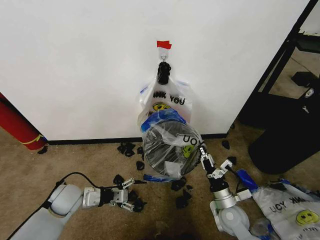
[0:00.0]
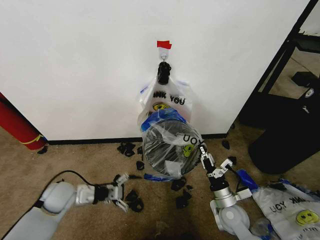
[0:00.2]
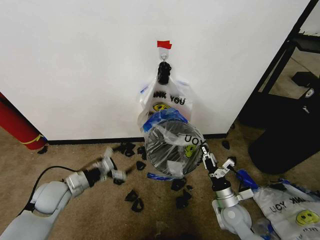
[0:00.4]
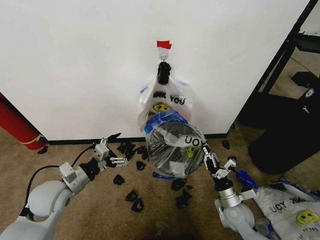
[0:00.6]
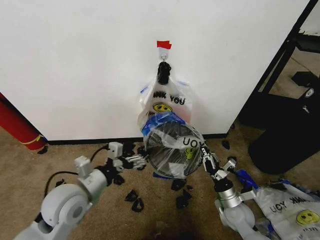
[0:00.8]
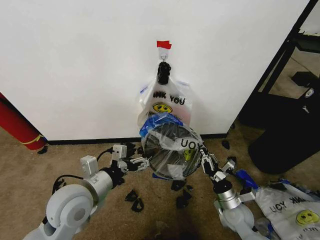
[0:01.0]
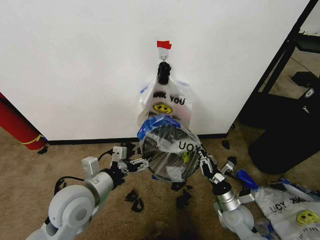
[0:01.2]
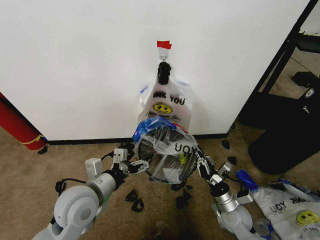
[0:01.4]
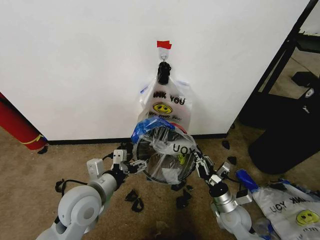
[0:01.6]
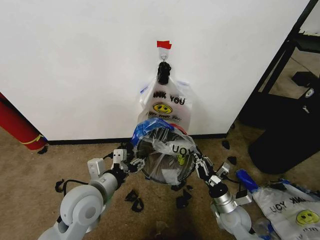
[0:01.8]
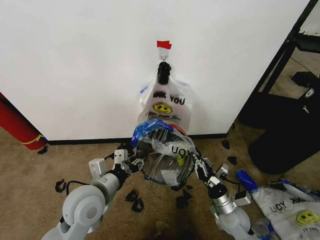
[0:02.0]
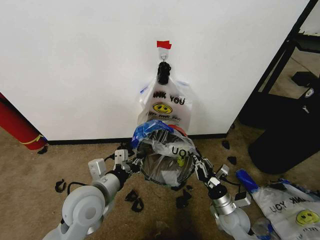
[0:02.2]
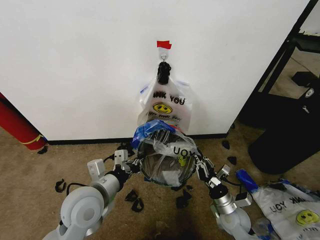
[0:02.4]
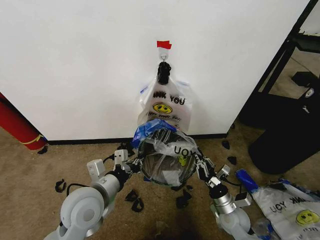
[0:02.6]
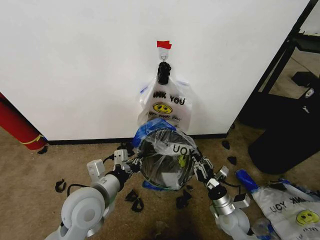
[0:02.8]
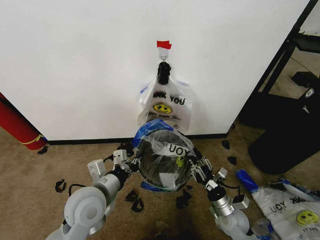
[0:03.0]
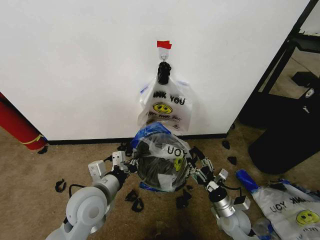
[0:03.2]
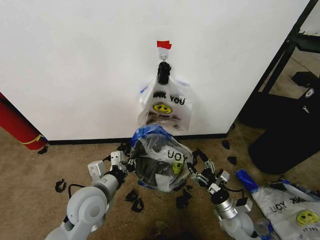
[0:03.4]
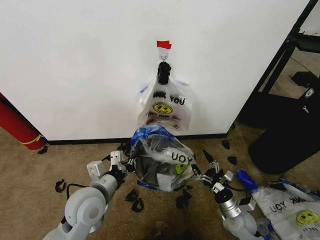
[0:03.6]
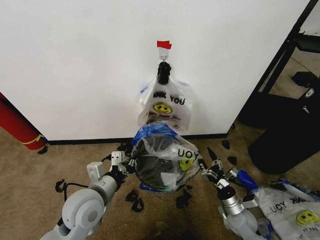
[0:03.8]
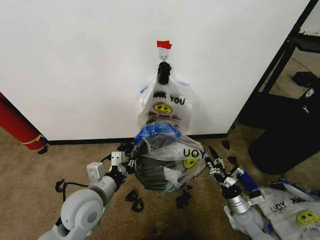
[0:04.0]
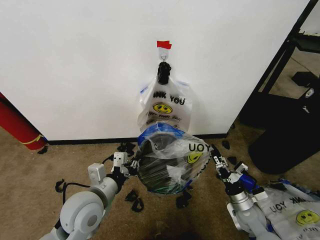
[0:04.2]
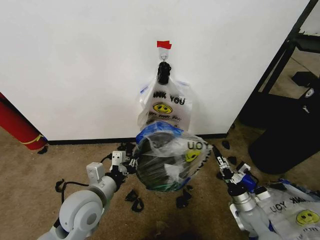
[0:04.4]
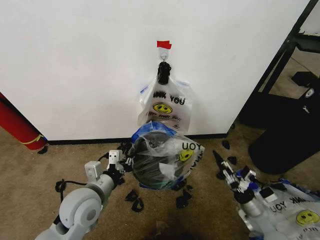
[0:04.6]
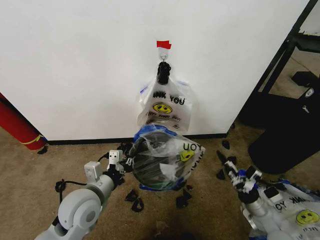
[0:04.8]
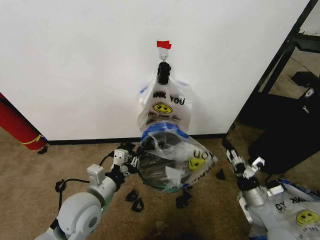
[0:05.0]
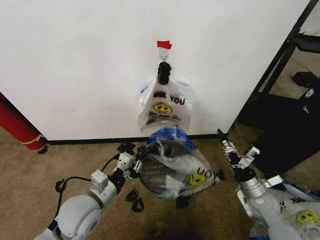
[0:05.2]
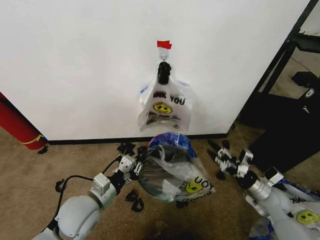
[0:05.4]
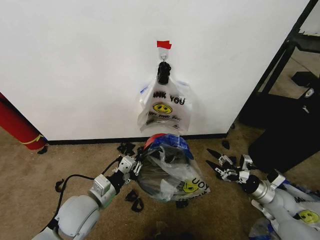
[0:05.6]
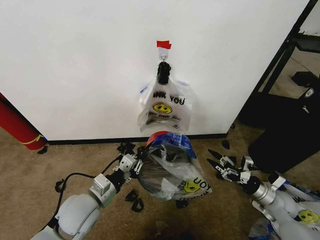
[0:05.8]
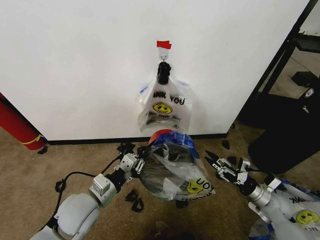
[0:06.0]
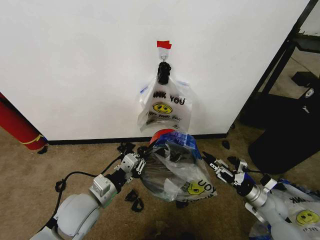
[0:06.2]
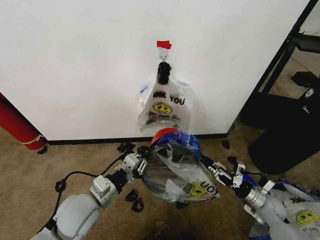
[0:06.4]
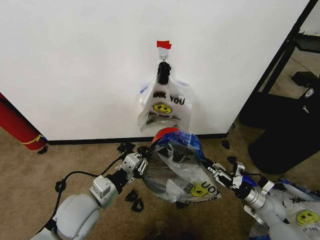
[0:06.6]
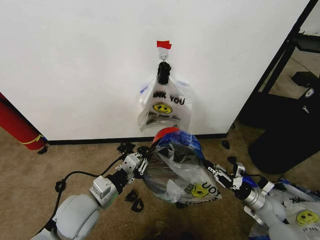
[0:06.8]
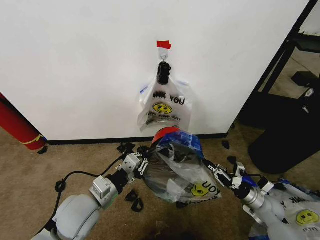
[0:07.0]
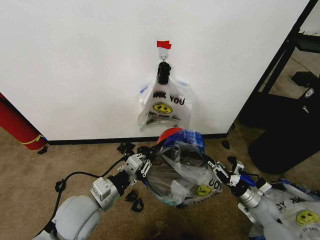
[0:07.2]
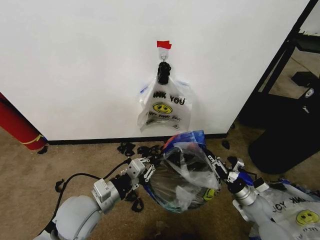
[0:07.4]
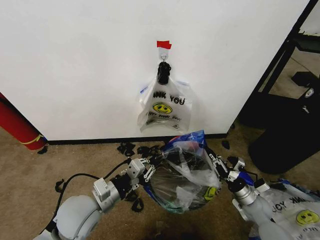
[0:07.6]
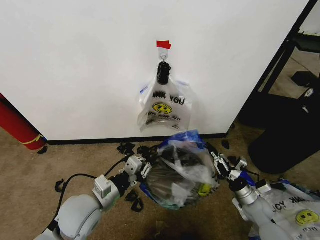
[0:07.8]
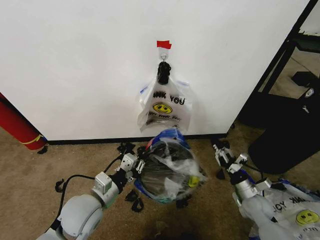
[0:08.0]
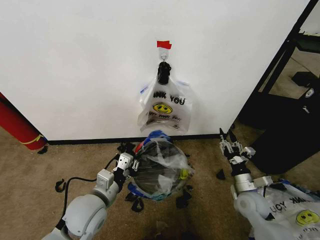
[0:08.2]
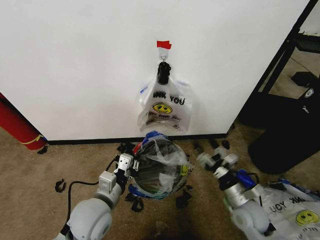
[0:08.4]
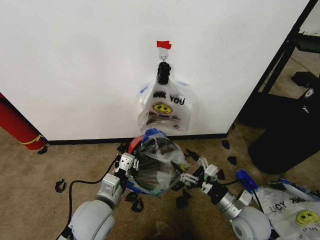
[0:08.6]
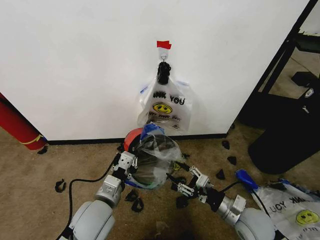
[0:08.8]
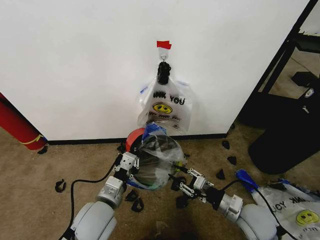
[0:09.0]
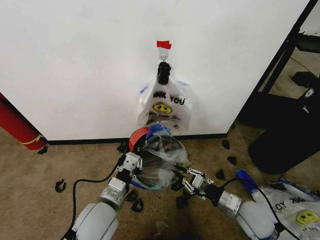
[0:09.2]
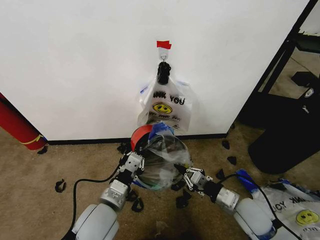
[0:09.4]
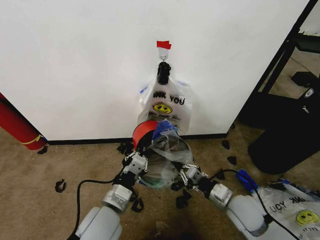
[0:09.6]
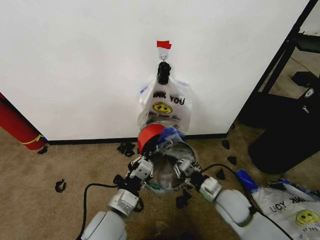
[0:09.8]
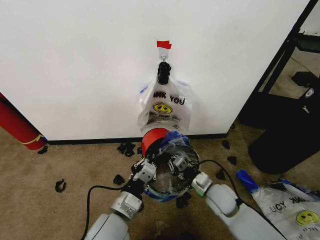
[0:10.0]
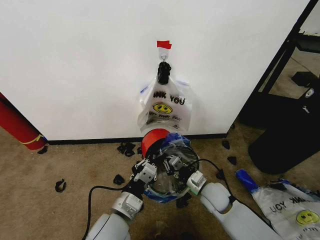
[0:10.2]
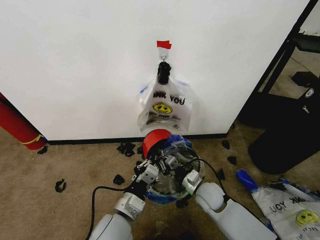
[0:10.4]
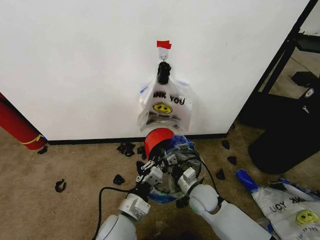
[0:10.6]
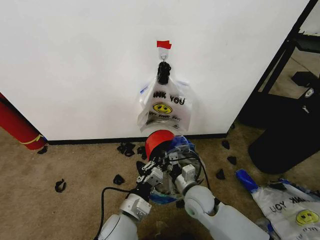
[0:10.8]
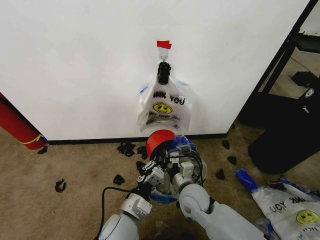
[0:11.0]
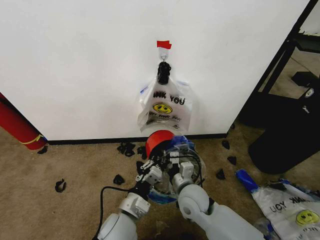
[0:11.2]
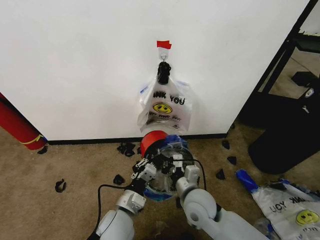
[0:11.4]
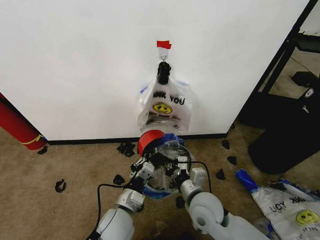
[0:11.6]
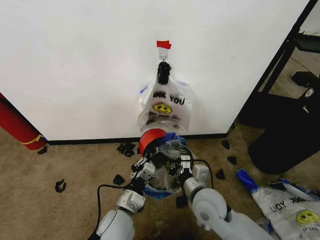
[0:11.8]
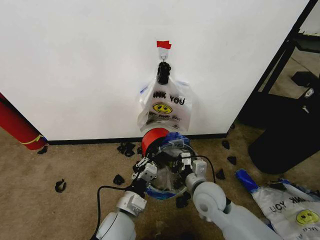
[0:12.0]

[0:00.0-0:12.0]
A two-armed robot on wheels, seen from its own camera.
Task of the whole recording: Pick up the garbage bag from the wall and place it over the trash bin.
0:00.0 to 0:01.6: The left gripper shifts roughly 20 cm upward, to the right and backward.
0:01.6 to 0:03.0: The left gripper closes its fingers. The right gripper opens its fingers.
0:03.0 to 0:04.4: The right gripper shifts about 5 cm to the right, and opens.
0:04.4 to 0:06.0: The right gripper moves to the right, about 10 cm.
0:06.0 to 0:07.6: The right gripper moves roughly 5 cm, and closes.
0:07.6 to 0:09.0: The right gripper is displaced upward, to the left and backward by some 15 cm, and opens.
0:09.0 to 0:10.4: The right gripper shifts roughly 15 cm to the left, forward and downward, and closes its fingers, while the left gripper ends up approximately 5 cm from where it was.
0:10.4 to 0:12.0: The right gripper heads upward, covering roughly 10 cm.

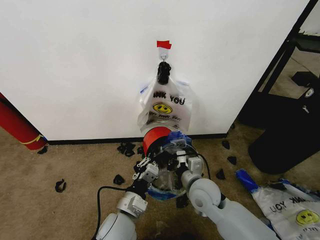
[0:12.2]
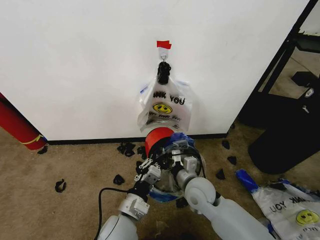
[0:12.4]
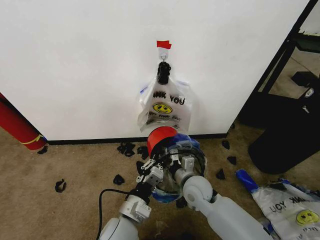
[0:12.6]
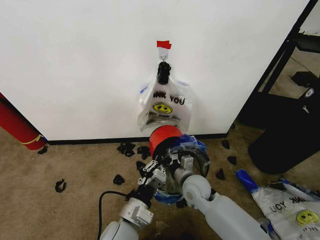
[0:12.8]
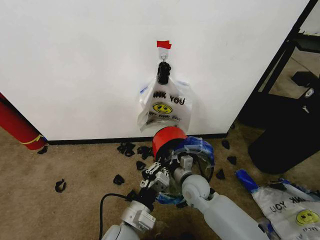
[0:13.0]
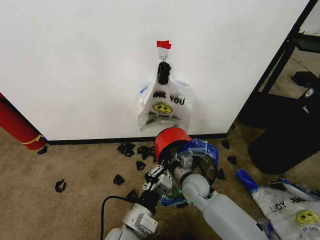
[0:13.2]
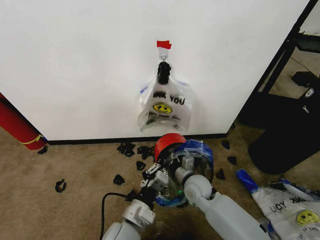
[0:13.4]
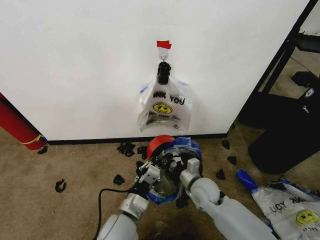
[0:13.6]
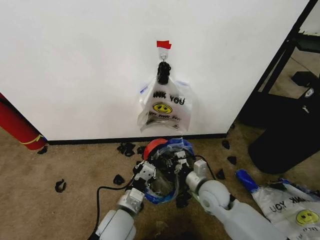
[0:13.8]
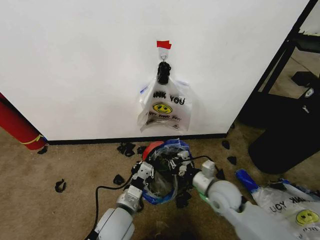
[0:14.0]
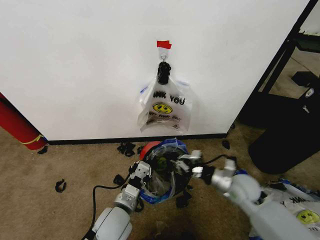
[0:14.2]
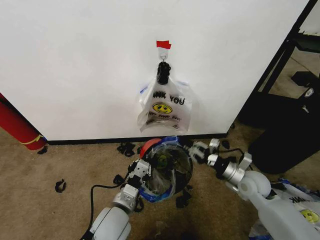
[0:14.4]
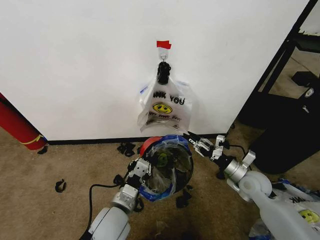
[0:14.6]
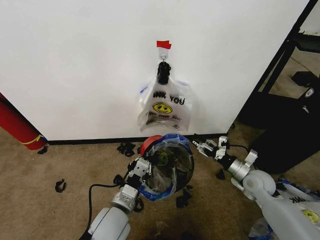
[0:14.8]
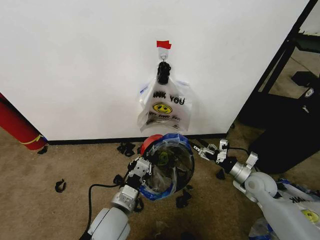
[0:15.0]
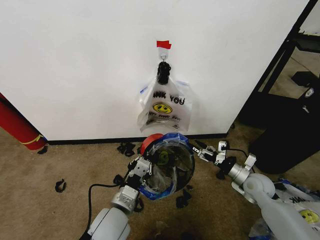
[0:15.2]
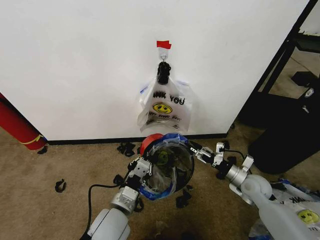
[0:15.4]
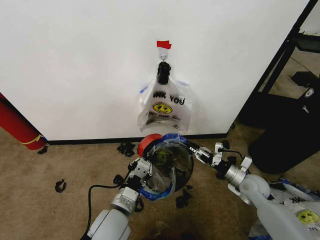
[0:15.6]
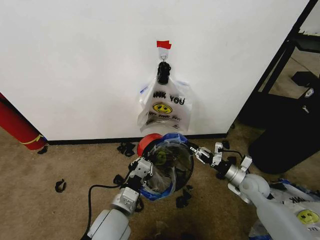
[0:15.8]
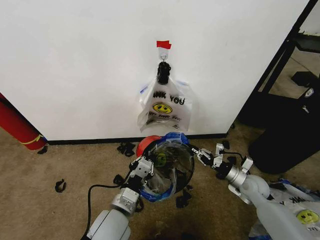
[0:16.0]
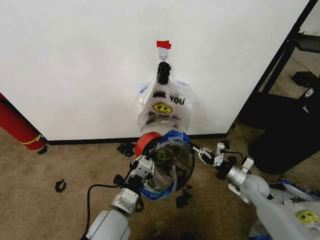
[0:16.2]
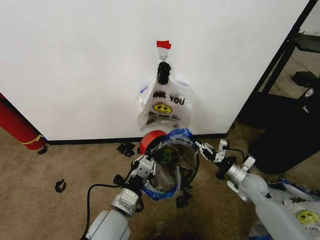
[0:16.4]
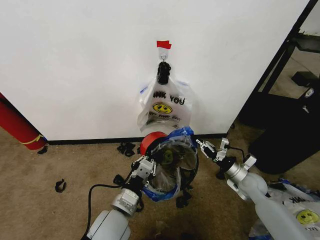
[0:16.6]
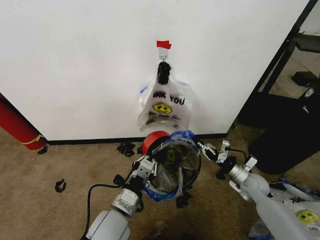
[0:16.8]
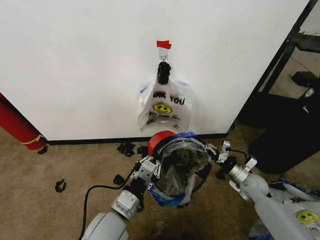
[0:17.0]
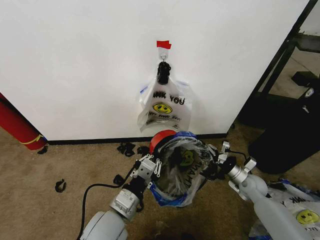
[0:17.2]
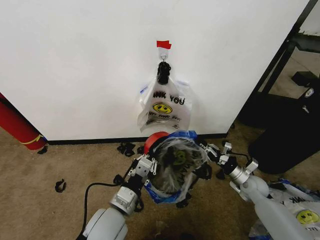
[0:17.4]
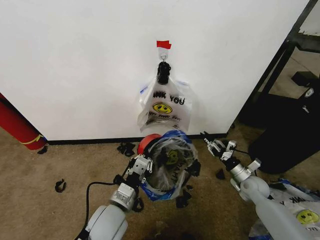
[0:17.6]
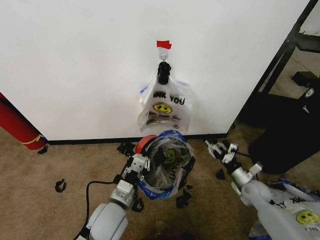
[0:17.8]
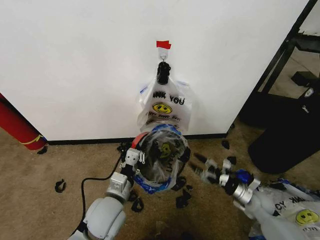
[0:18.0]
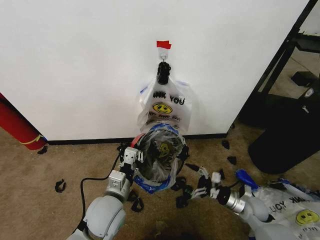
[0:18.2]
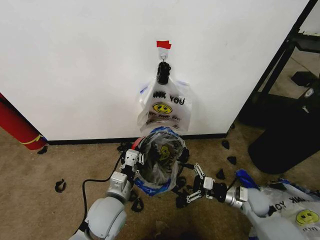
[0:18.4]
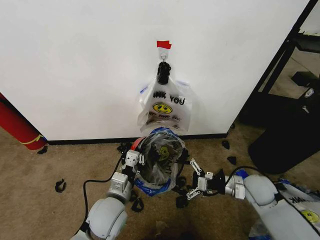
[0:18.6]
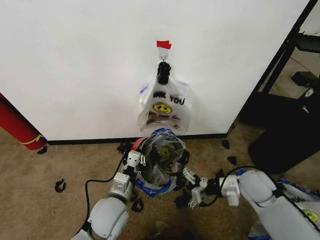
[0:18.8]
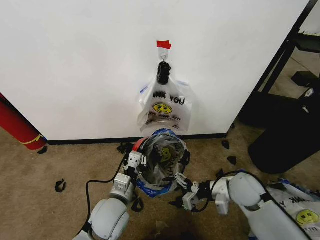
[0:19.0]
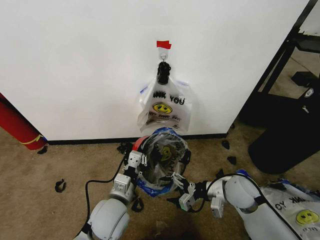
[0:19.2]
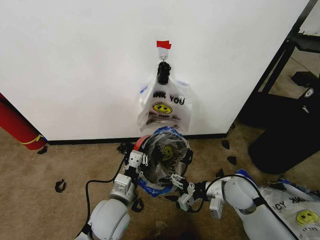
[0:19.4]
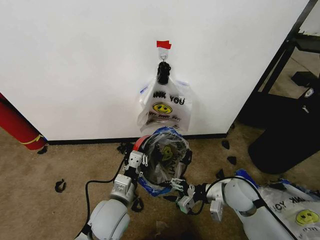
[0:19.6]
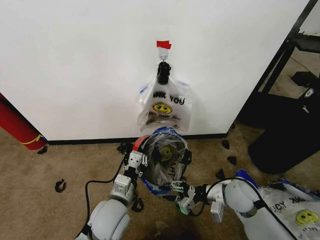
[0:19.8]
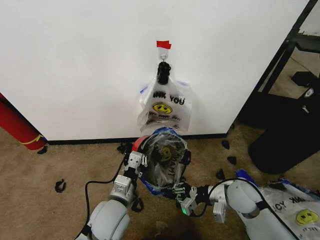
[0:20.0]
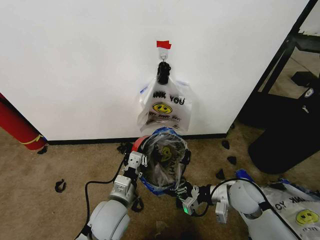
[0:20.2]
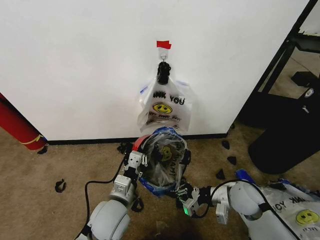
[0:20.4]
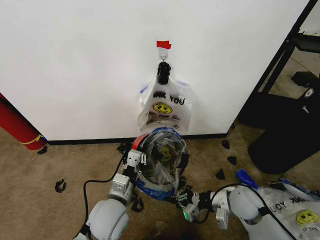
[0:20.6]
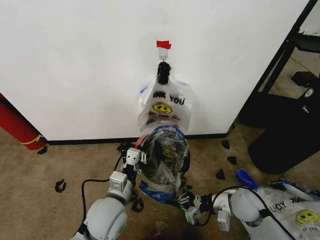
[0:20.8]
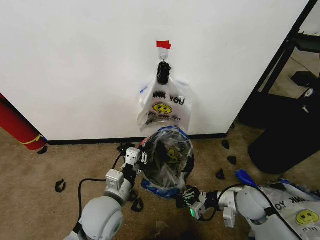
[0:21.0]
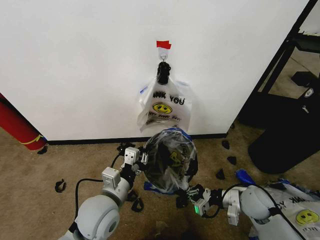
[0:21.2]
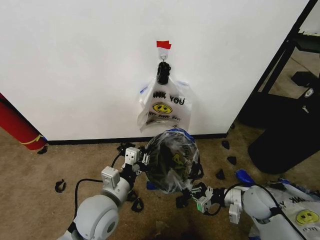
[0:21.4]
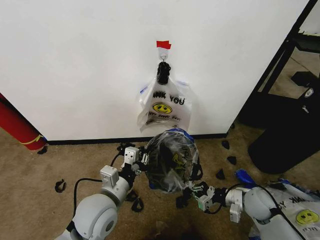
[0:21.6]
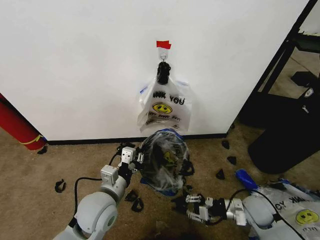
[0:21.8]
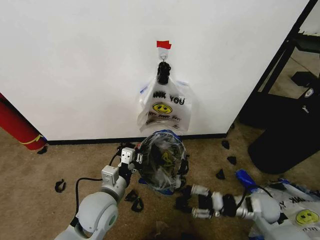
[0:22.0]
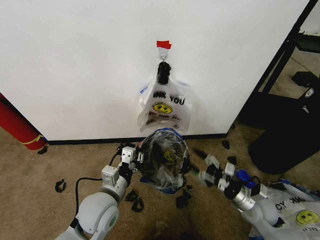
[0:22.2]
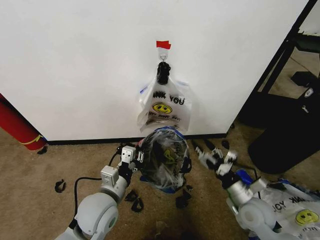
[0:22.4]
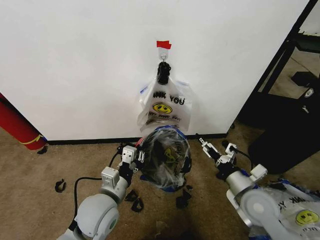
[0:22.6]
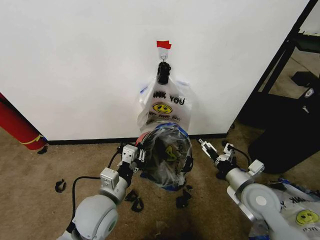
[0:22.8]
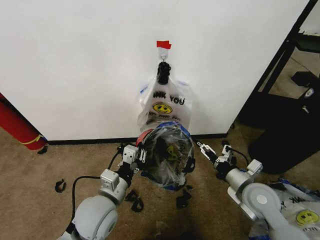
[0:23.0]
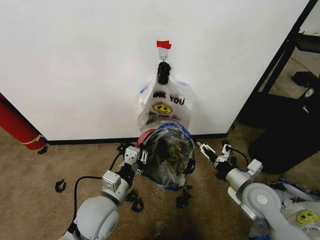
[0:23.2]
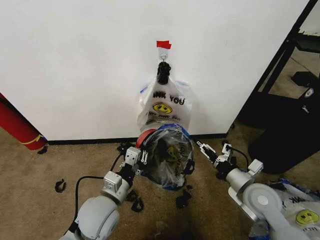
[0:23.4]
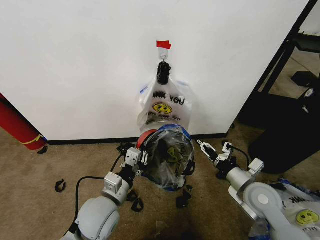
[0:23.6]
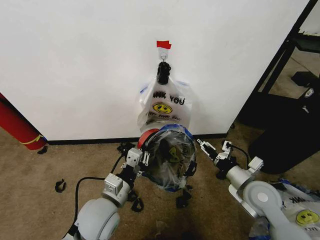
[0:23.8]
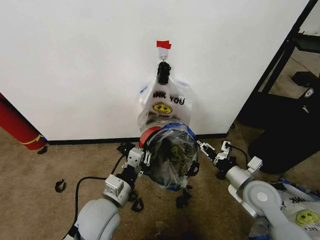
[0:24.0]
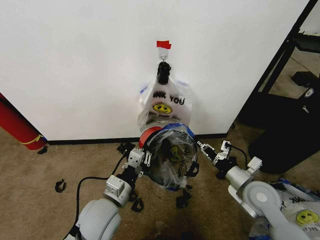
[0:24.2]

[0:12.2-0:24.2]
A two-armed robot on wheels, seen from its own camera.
Task of the whole recording: Pick up the garbage bag from the wall and place it over the trash bin.
0:12.2 to 0:13.8: The right gripper changes place by about 5 cm.
0:13.8 to 0:15.2: The right gripper travels to the right by approximately 20 cm, and opens up.
0:15.2 to 0:16.6: The right gripper closes.
0:16.6 to 0:18.2: The right gripper heads backward and downward, covering roughly 10 cm, and opens up.
0:18.2 to 0:19.8: The right gripper travels upward and to the left by approximately 15 cm, and closes its fingers.
0:19.8 to 0:21.2: The right gripper is displaced to the right by approximately 5 cm, and closes up.
0:21.2 to 0:22.6: The right gripper travels upward by approximately 5 cm, and opens.
0:22.6 to 0:24.2: The right gripper closes.
